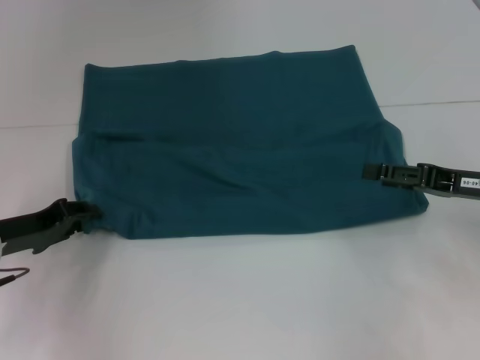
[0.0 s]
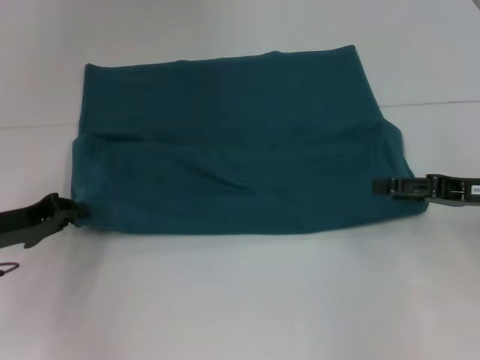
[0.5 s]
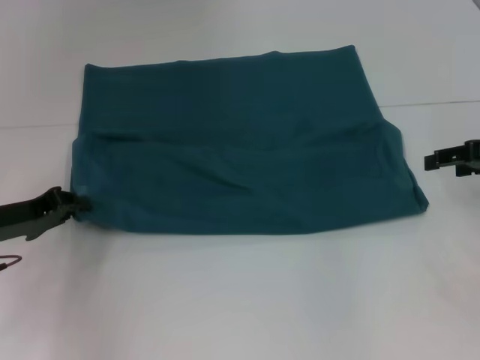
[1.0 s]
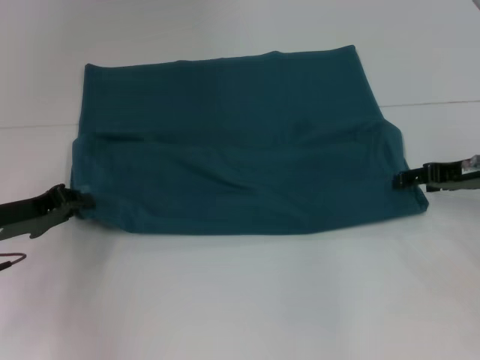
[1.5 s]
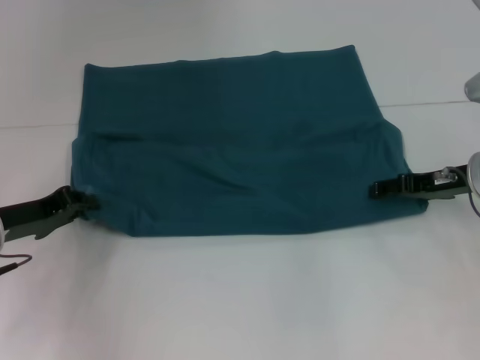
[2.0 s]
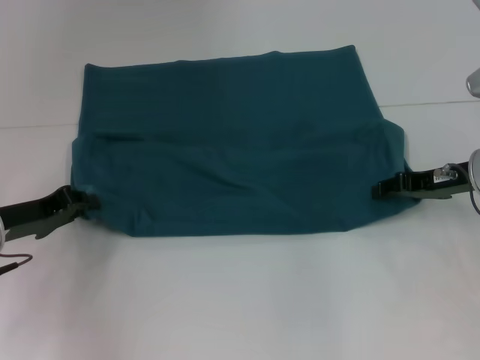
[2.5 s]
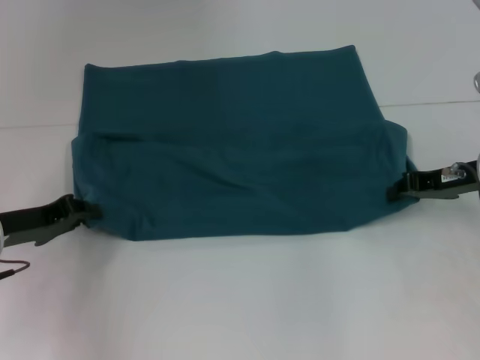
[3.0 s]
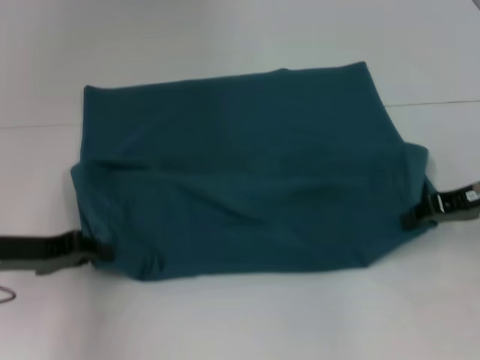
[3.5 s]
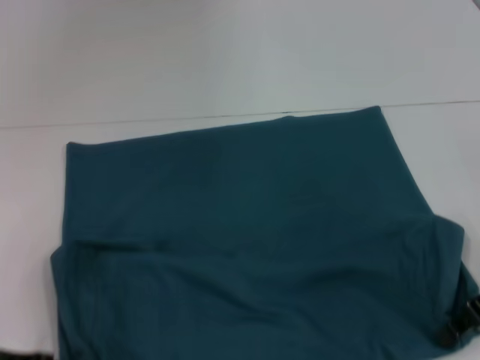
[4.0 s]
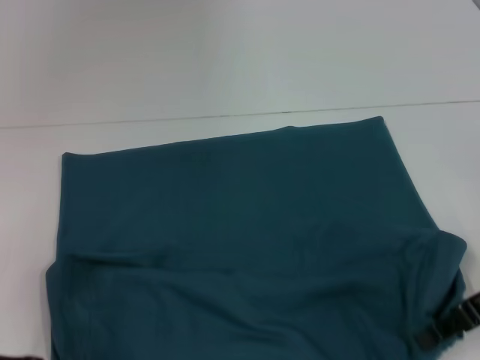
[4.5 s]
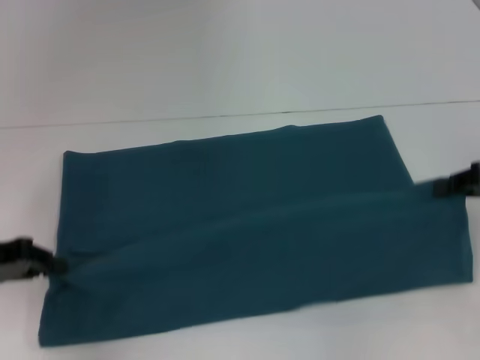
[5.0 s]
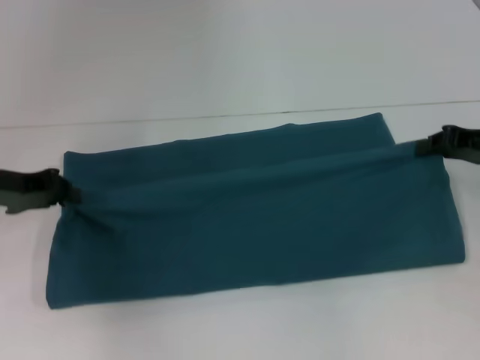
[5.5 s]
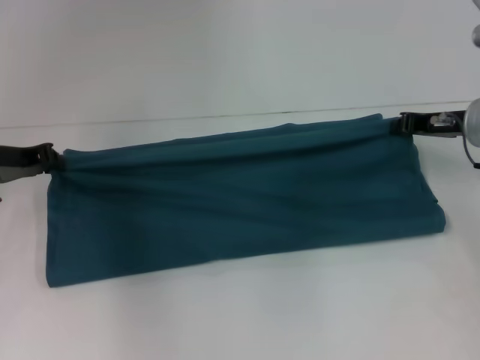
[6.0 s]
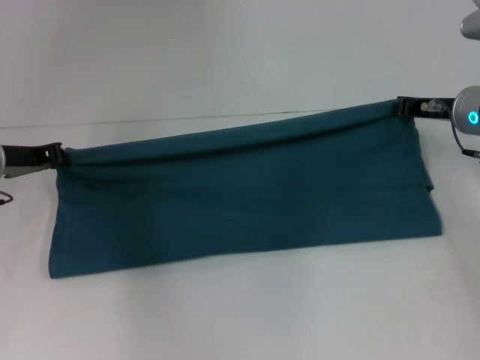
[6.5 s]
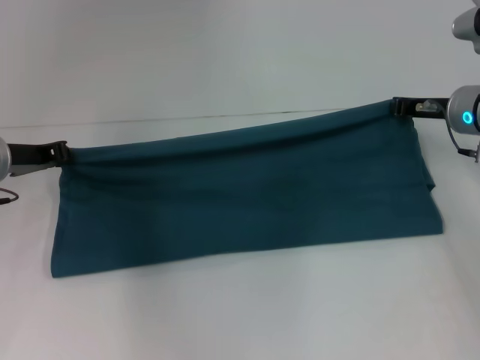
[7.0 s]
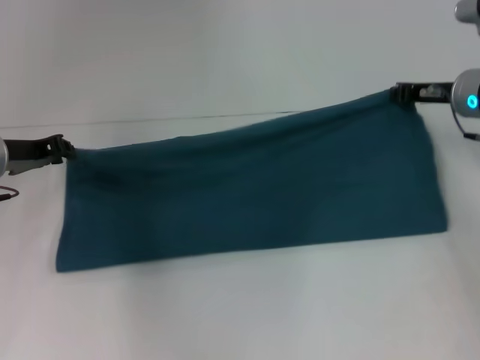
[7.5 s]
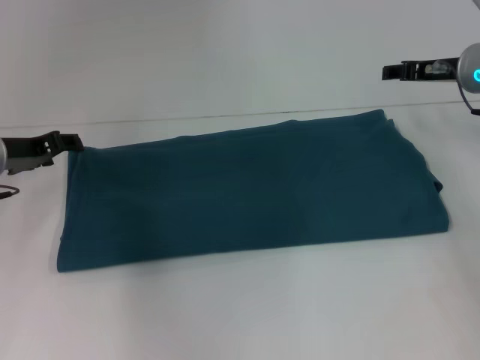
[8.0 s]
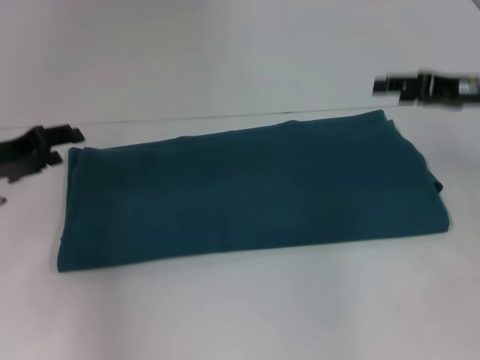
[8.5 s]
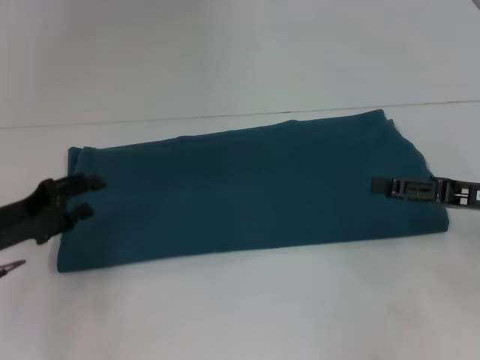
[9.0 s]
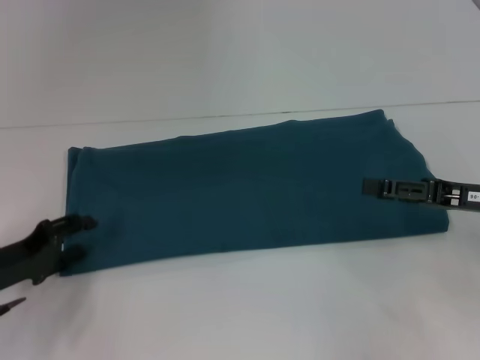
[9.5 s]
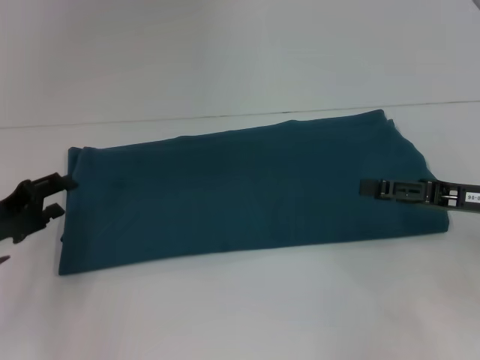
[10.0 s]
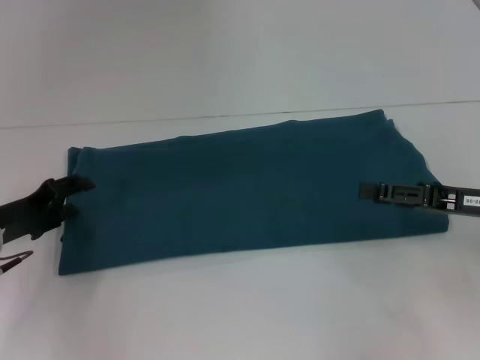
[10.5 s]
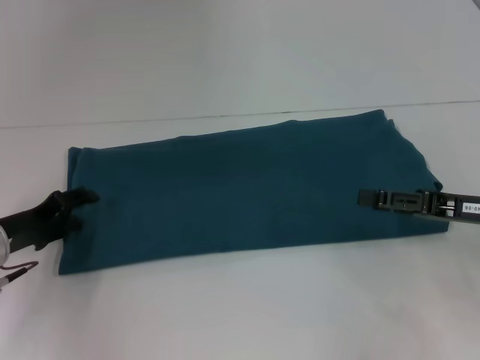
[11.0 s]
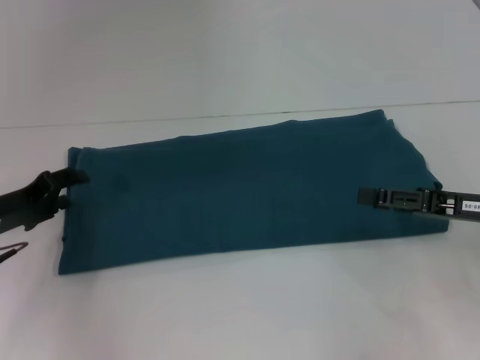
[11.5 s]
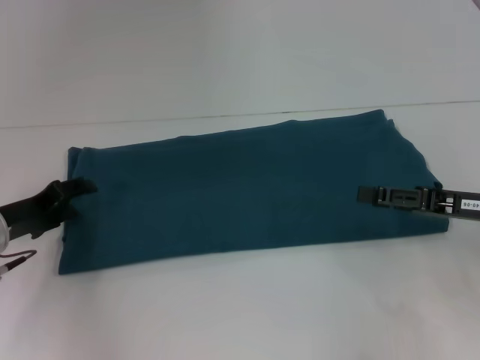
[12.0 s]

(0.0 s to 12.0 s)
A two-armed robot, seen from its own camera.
Step, 0.0 s - 3.5 s: Pull the clothes with your left hand.
Step, 0.0 s - 3.5 s: Pull the clothes with your right hand.
Step, 4.0 s - 8.0 s: Fold the clothes to the right.
0.0 s - 2.0 s: The left gripper closes its fingers, while the right gripper heads forward, covering roughly 5 cm.
2.0 s - 4.0 s: Both grippers move backward, roughly 10 cm. The right gripper closes up.
4.0 s - 6.0 s: The grippers both shift forward by some 15 cm.
6.0 s - 8.0 s: The right gripper shifts by roughly 5 cm, and opens up. Meanwhile the left gripper opens up.
8.0 s - 10.0 s: The right gripper goes roughly 15 cm backward. The left gripper goes approximately 10 cm backward and downward.
10.0 s - 12.0 s: The grippers stay close to where they were, moving slightly.

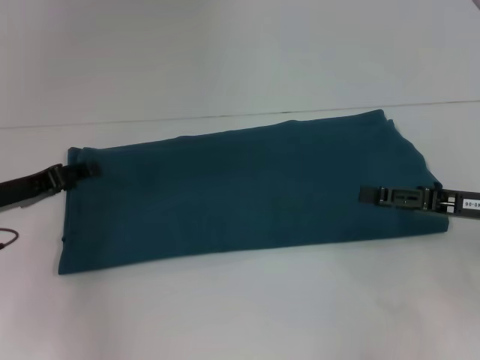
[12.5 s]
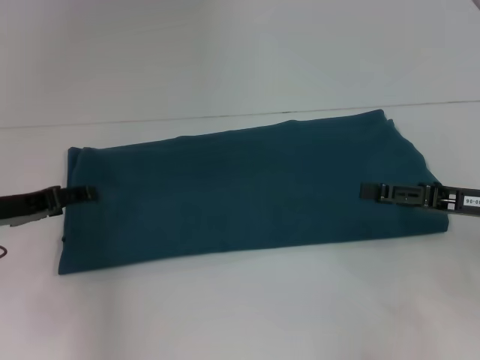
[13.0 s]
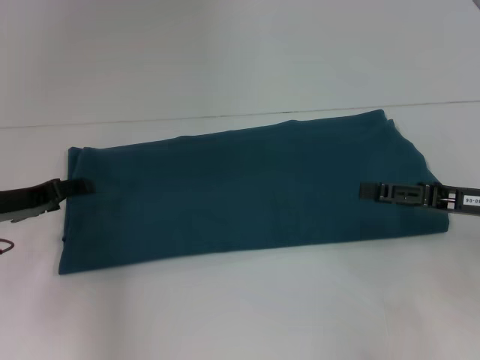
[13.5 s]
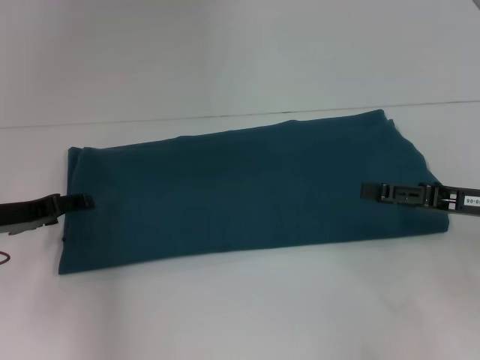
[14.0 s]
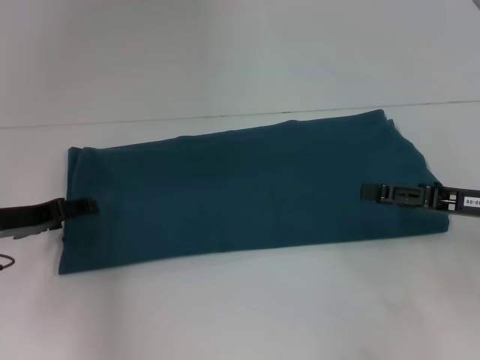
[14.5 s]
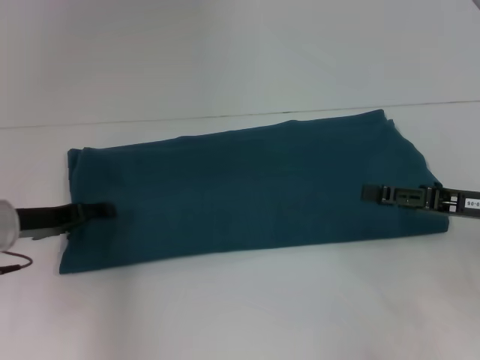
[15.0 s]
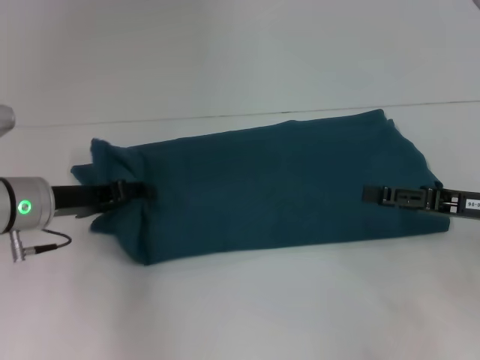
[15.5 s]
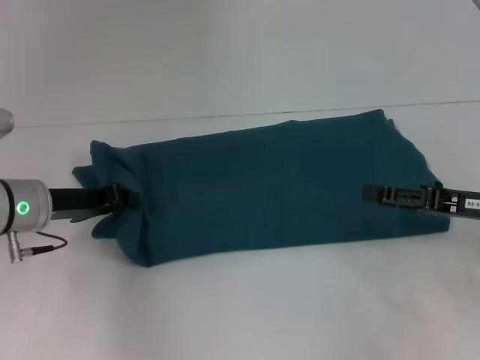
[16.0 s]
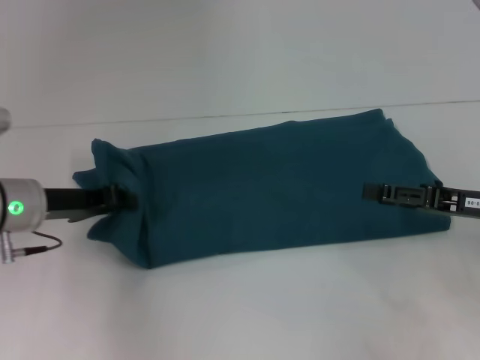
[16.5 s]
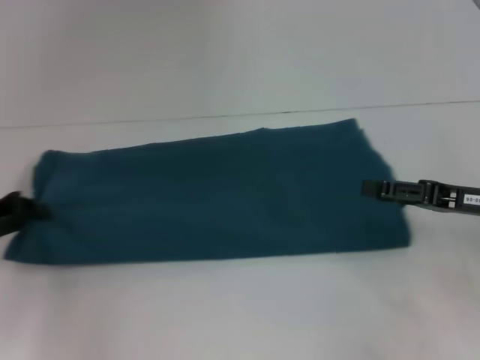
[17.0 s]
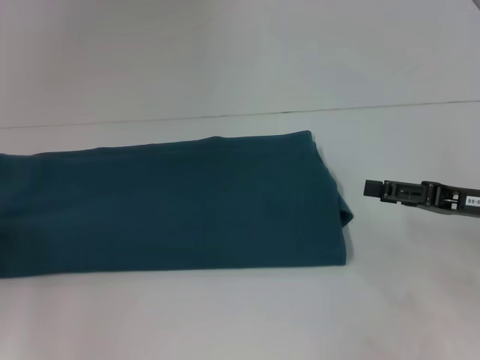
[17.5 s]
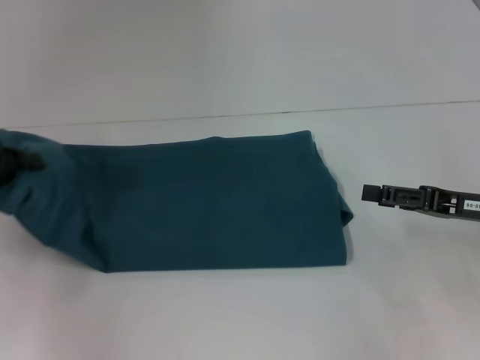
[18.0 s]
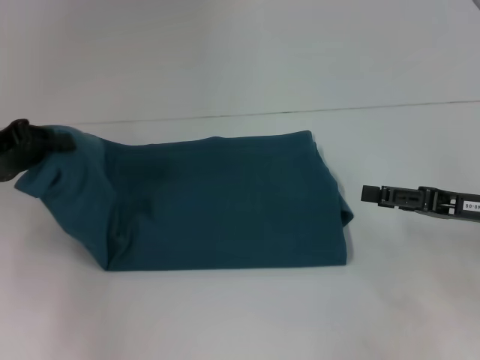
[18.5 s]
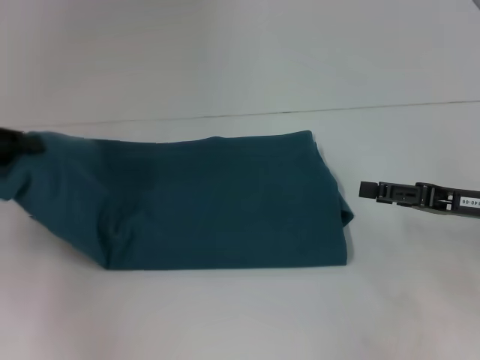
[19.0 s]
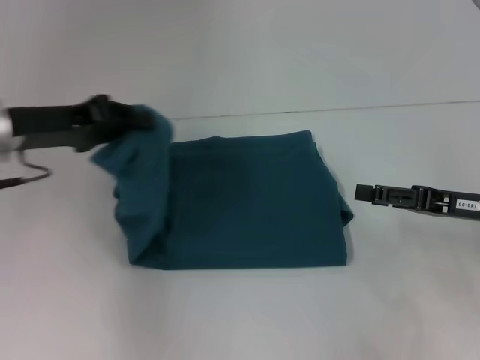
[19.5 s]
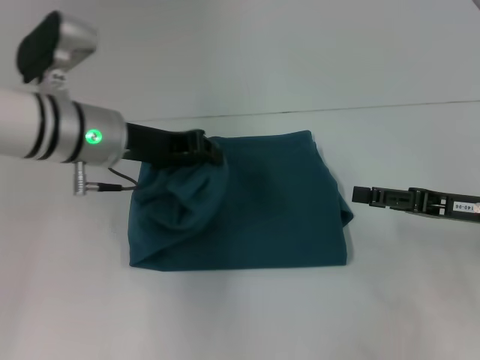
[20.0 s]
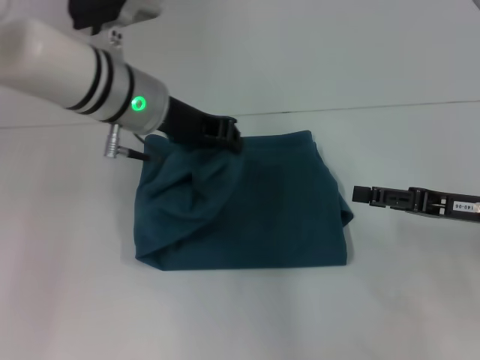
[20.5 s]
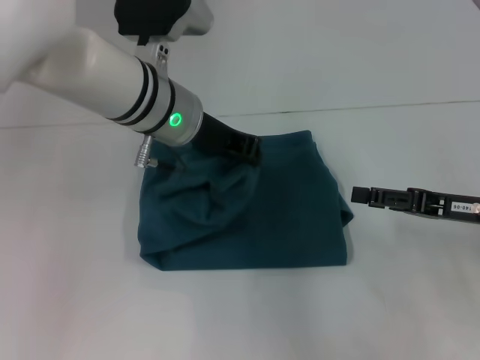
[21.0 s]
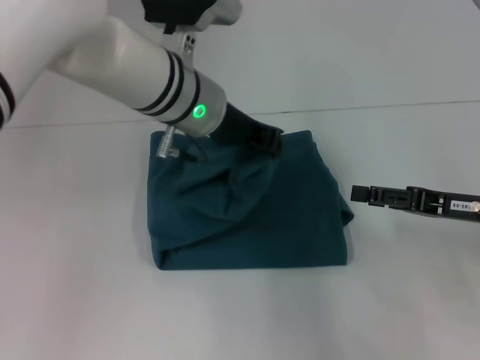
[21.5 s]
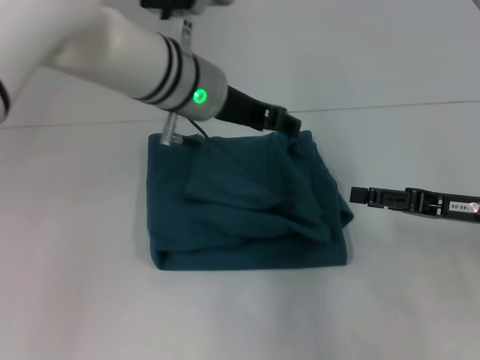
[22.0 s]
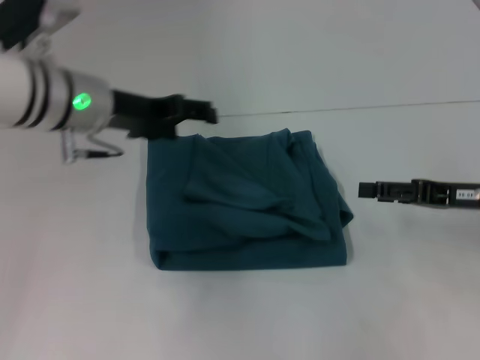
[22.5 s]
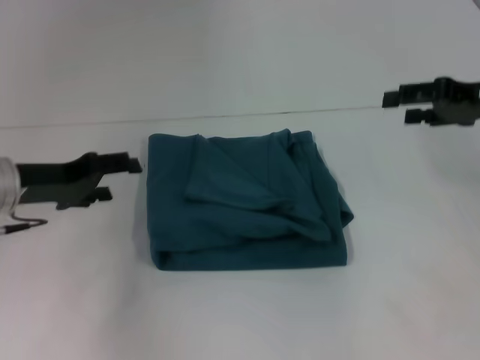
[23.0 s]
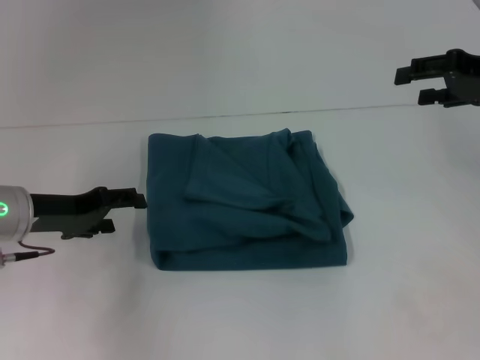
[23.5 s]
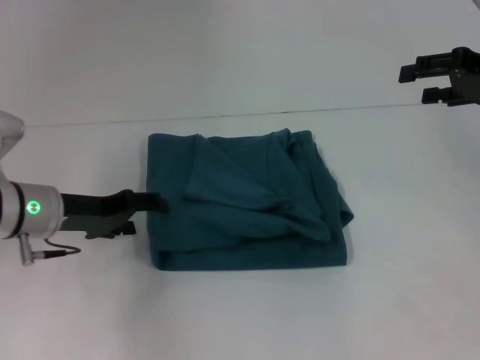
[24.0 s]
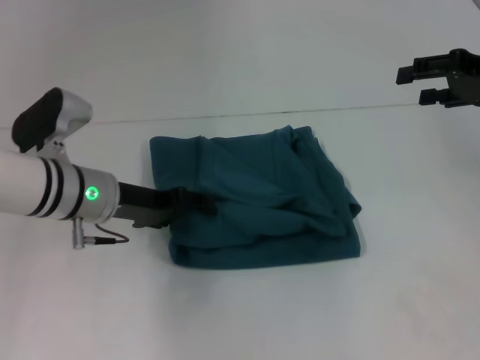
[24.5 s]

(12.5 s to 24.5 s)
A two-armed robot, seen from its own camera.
Step, 12.5 s - 22.0 s: Fold the clothes to the left.
12.5 s - 14.5 s: The grippers stay close to where they were, moving slightly.
14.5 s - 16.5 s: The left gripper ends up some 5 cm from where it was, and closes.
16.5 s - 18.5 s: The left gripper heads to the left and upward, covering approximately 10 cm.
18.5 s - 20.5 s: The left gripper shifts about 20 cm to the right.
20.5 s - 22.5 s: The left gripper goes approximately 5 cm to the left, and opens up.
22.5 s - 24.5 s: The left gripper shifts roughly 10 cm downward, and travels to the left and back again, approximately 10 cm each way. Meanwhile the right gripper shifts some 15 cm upward and forward.

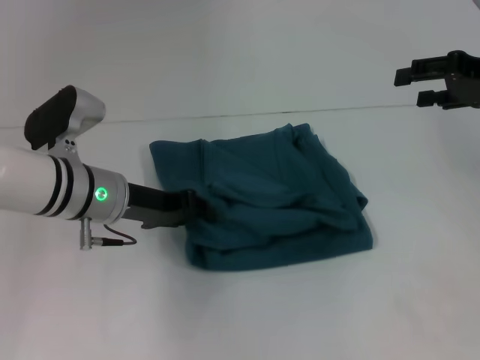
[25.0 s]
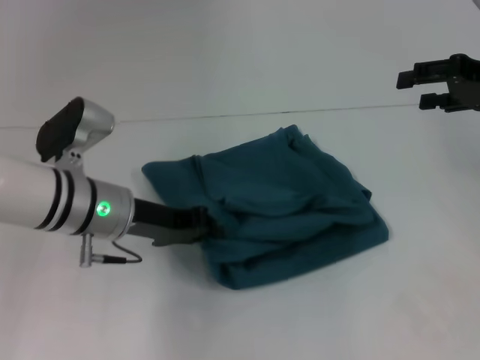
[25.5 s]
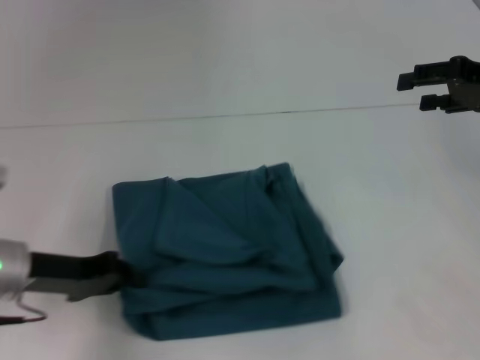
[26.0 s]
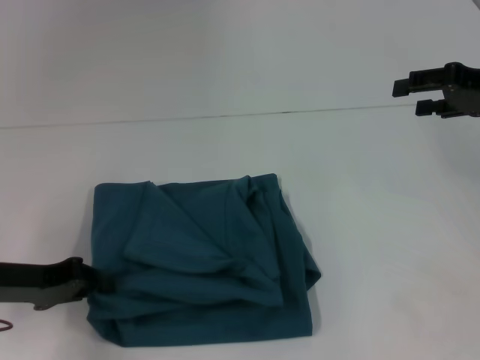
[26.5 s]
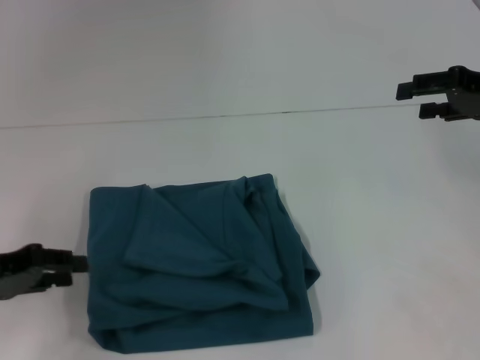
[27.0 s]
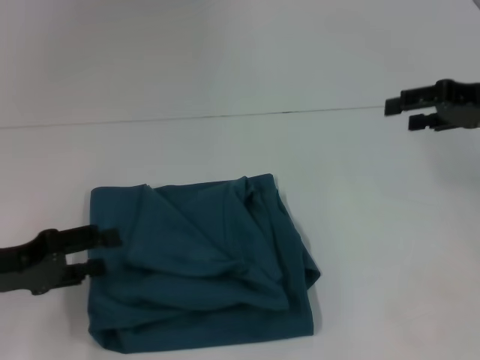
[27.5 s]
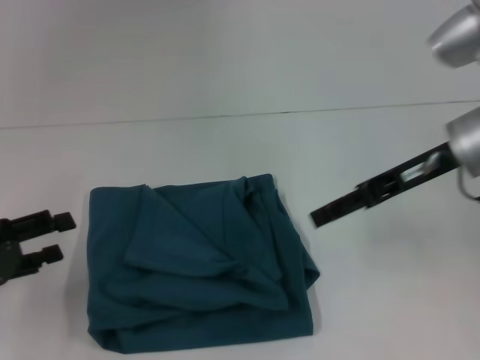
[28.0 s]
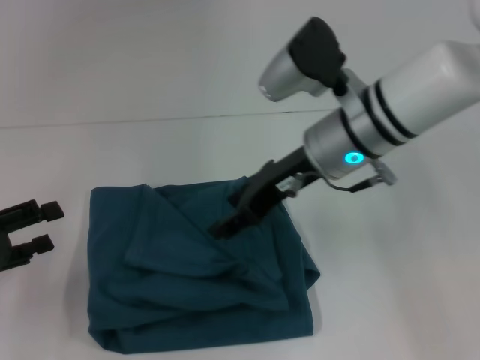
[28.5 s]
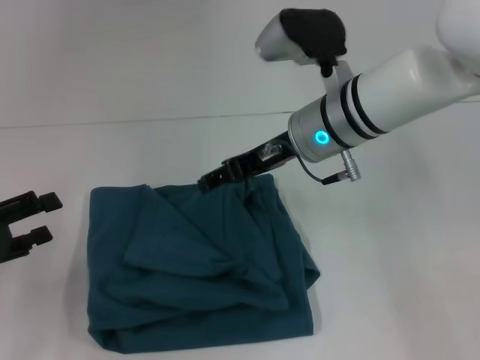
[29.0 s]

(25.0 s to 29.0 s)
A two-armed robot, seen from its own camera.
25.0 s - 27.0 s: The left gripper moves to the left and backward, roughly 20 cm.
27.0 s - 29.0 s: The left gripper opens its fingers; the right gripper moves to the left, roughly 25 cm.
